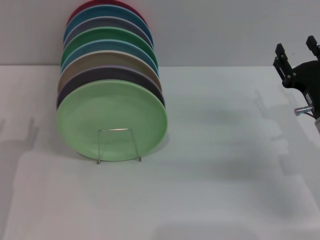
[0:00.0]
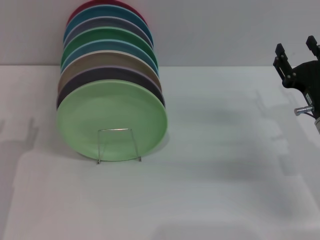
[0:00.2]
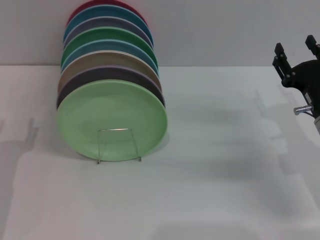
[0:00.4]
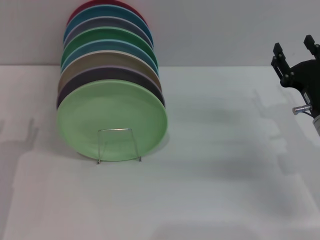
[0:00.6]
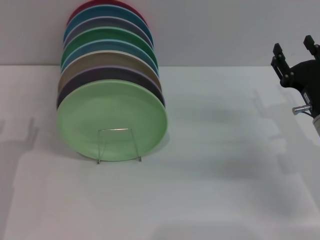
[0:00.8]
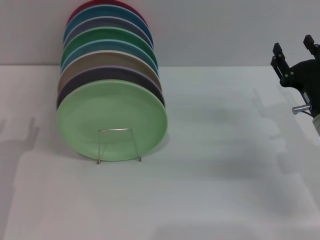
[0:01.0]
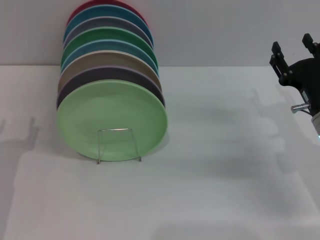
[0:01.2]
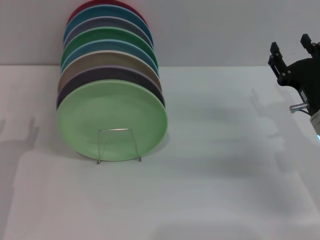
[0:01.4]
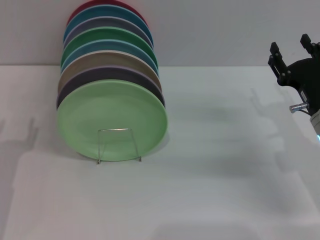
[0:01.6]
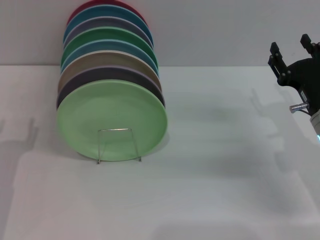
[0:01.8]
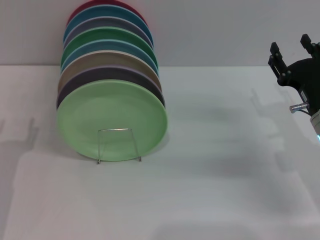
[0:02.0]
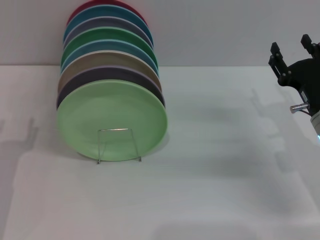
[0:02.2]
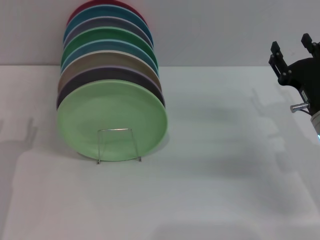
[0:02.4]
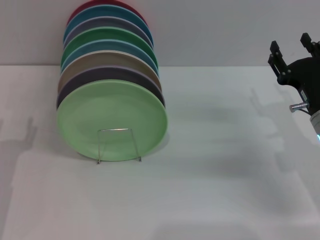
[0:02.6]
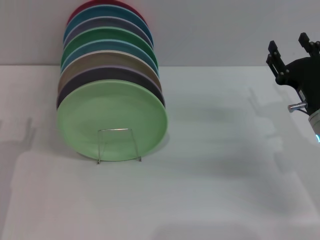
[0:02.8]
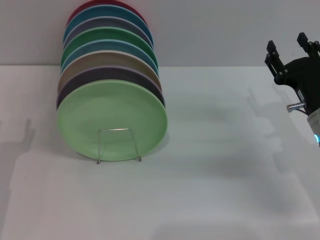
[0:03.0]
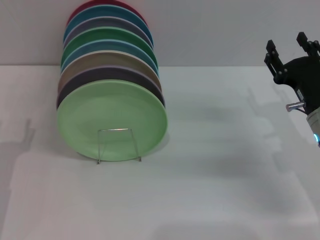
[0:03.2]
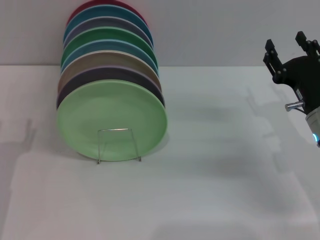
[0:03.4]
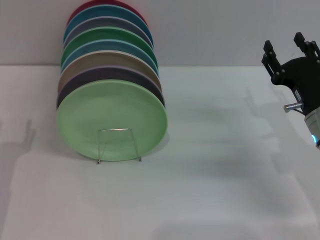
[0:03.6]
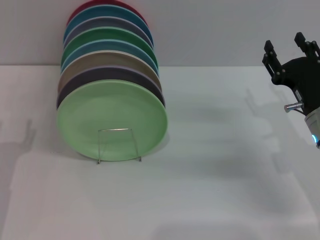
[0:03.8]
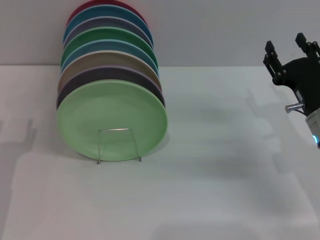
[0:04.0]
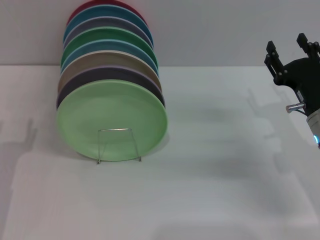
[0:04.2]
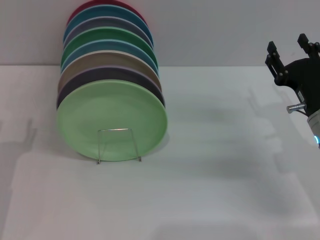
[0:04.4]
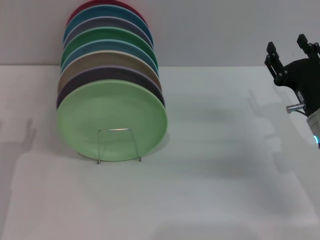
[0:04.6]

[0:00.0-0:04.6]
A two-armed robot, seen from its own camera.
Task of the whole recording: Grip the plate with one hand, pass it to the other, then set it on the shelf.
0:00.0 to 0:03.0: Neither gripper changes place.
0:03.0 to 0:04.6: Both grippers stay about where they are.
